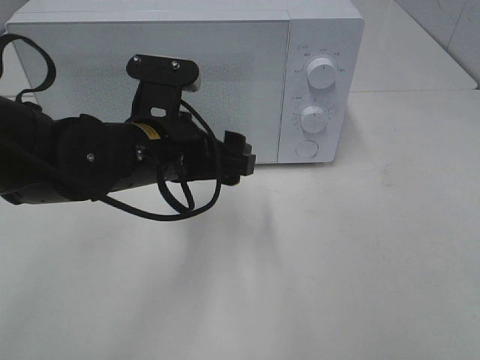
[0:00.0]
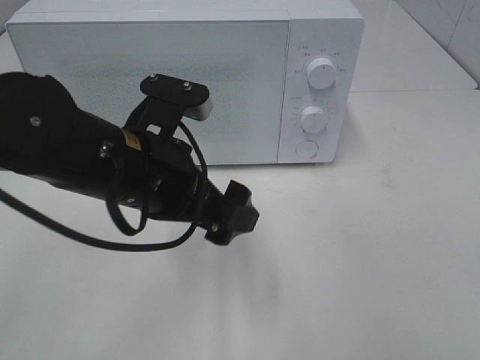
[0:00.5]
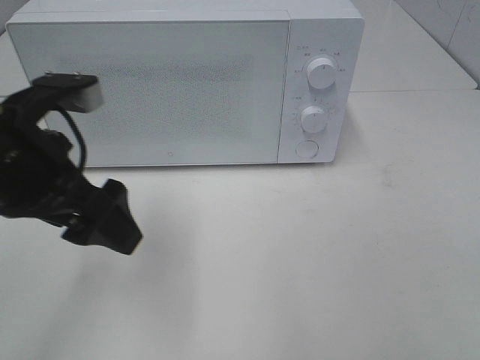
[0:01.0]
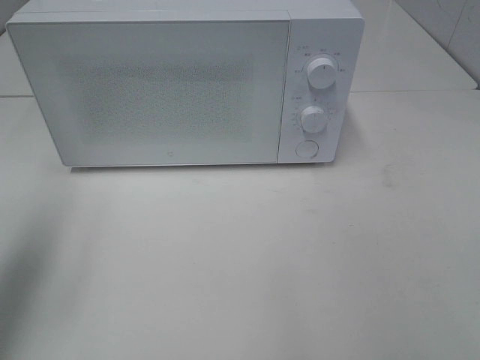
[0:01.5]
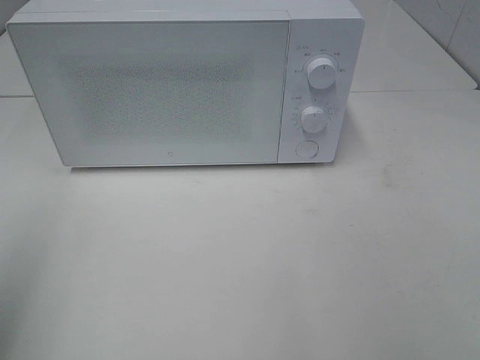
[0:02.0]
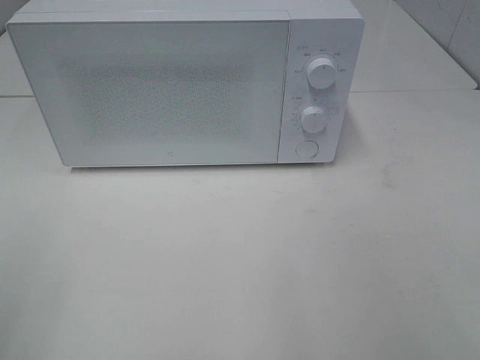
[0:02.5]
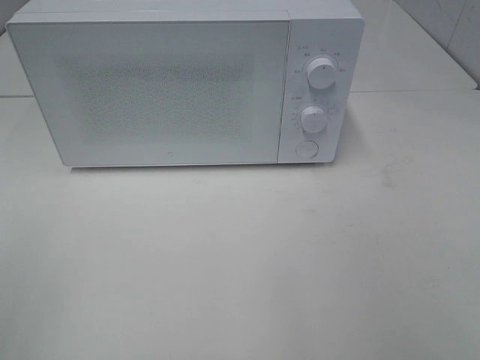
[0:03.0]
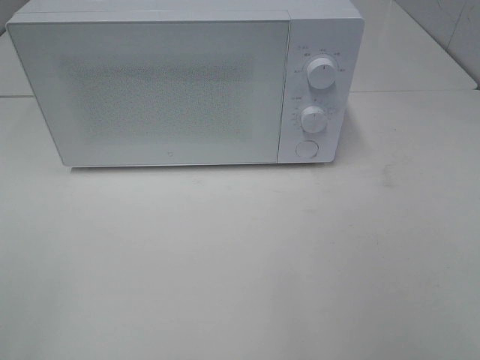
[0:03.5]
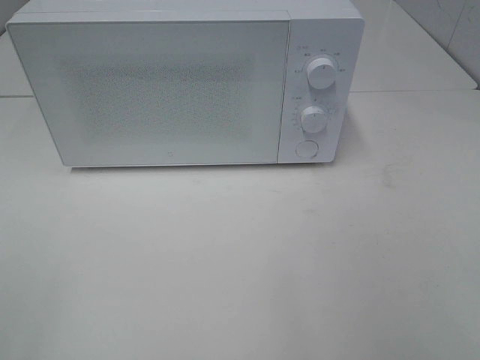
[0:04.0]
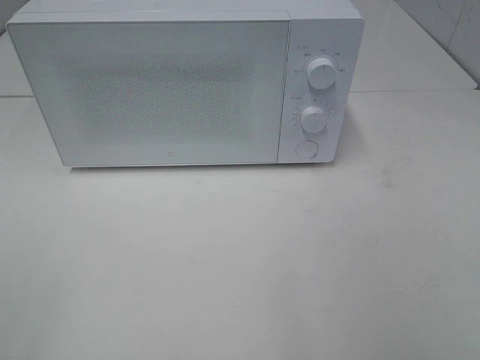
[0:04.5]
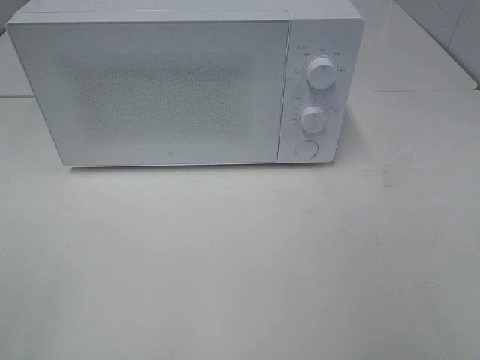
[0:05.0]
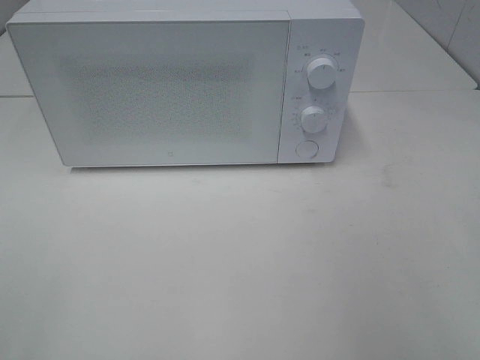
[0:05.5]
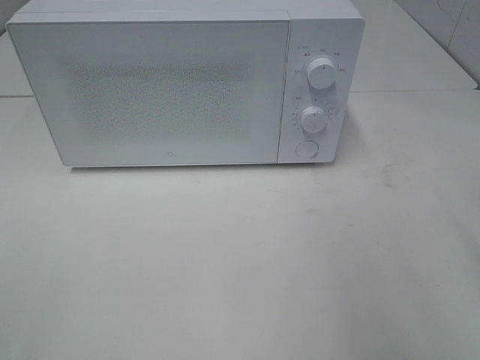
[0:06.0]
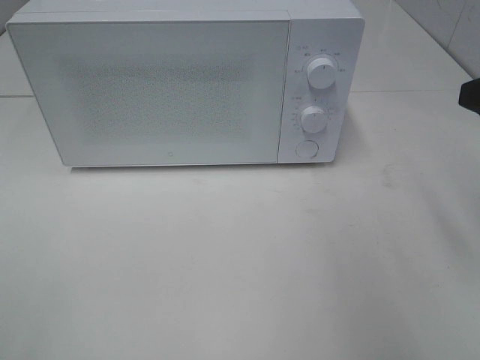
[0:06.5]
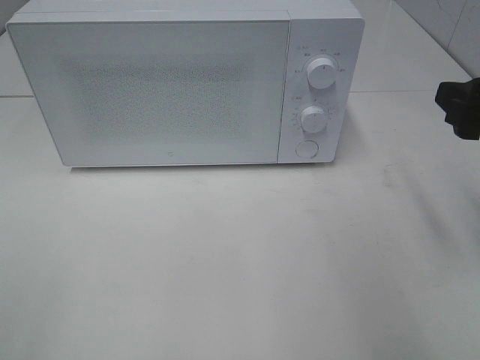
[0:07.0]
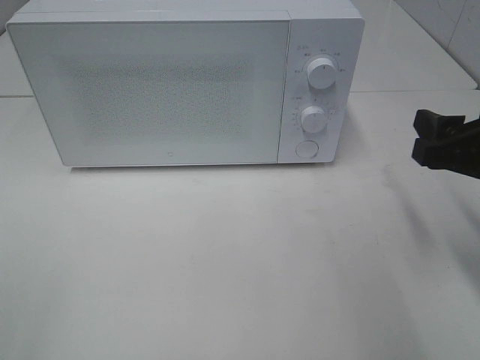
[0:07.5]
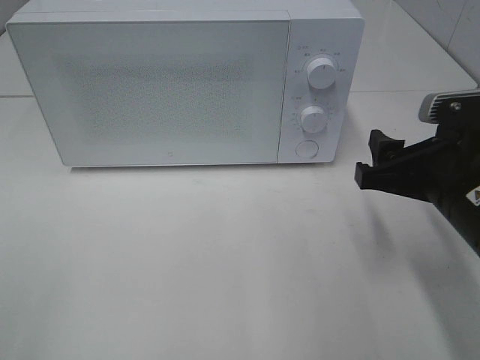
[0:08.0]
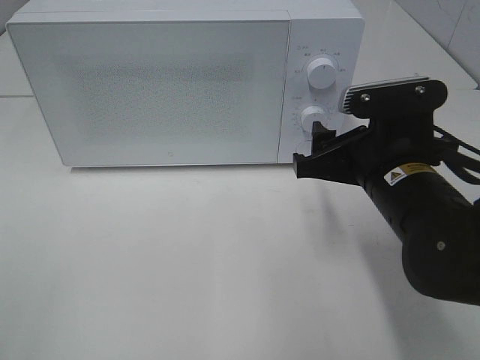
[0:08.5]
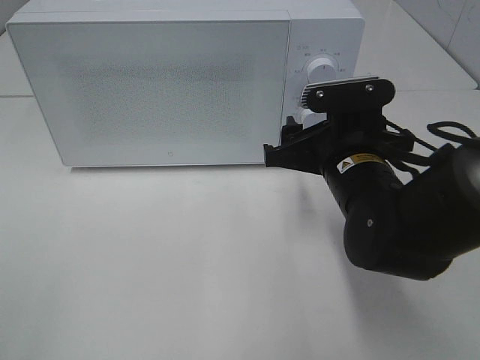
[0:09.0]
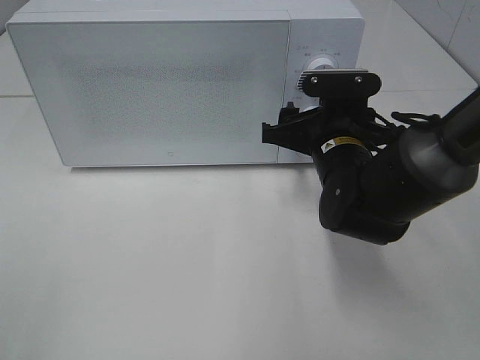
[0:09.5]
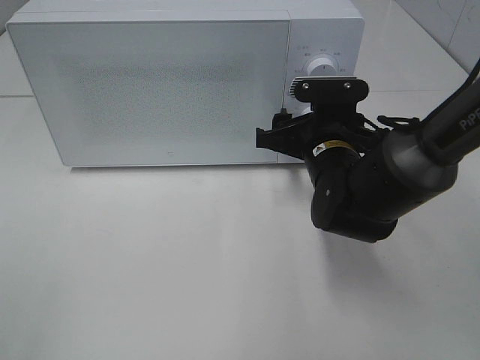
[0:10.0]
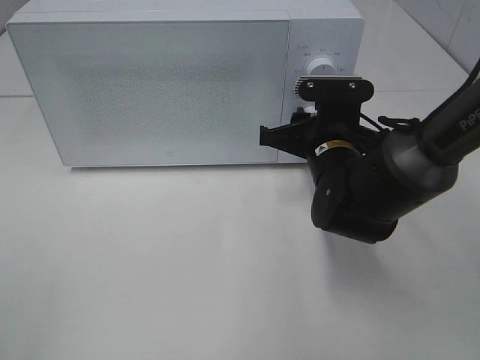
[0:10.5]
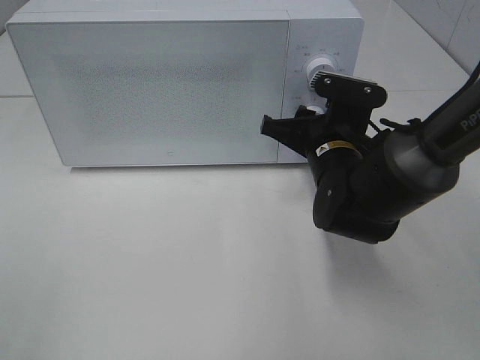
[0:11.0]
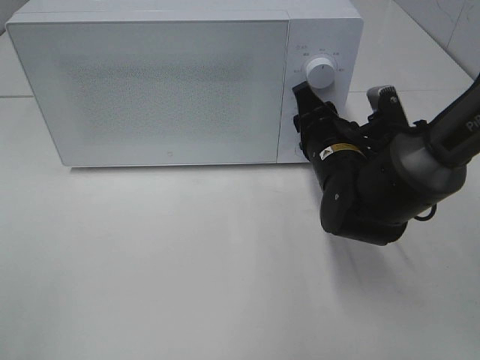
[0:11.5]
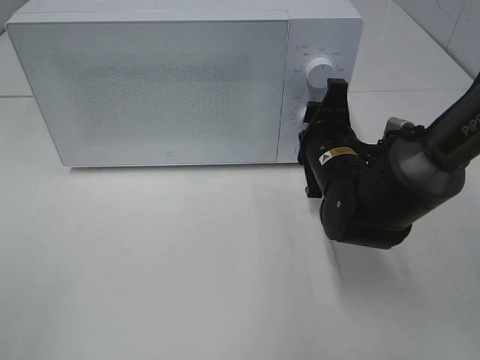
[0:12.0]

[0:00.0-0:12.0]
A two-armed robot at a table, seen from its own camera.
Task of the whole recording: Heat the burger.
0:00.0 to 0:02.0: The left gripper shifts about 35 cm to the left, upward and backward.
0:02.0 to 0:04.0: The left gripper is displaced backward by some 10 cm.
0:06.0 to 0:08.0: The right gripper moves downward, to the left and forward, approximately 15 cm.
0:08.0 to 0:10.0: The right gripper shifts about 15 cm forward, to the left and downward.
0:10.0 to 0:12.0: The right gripper closes up.

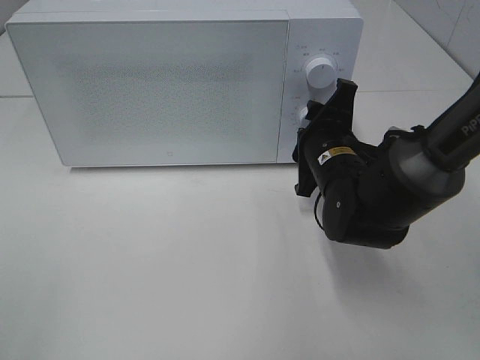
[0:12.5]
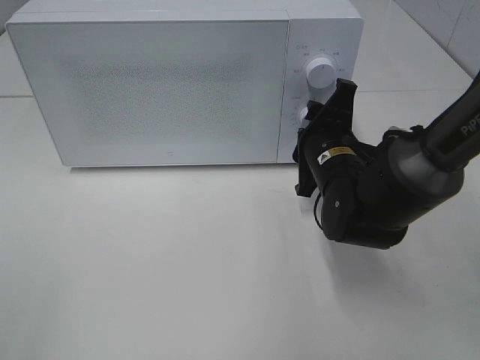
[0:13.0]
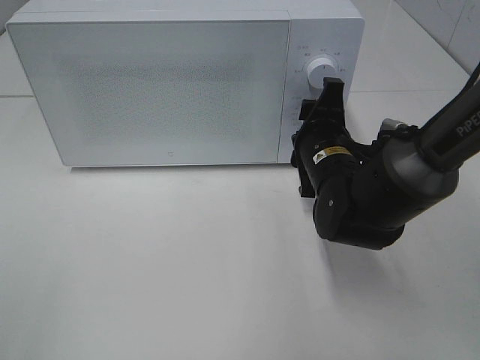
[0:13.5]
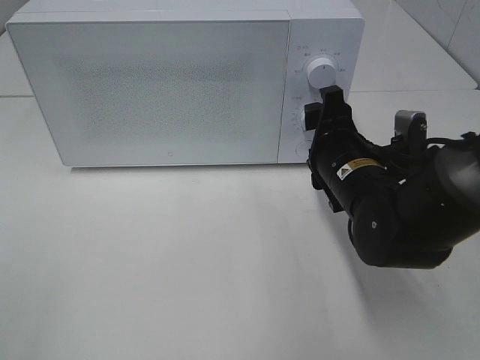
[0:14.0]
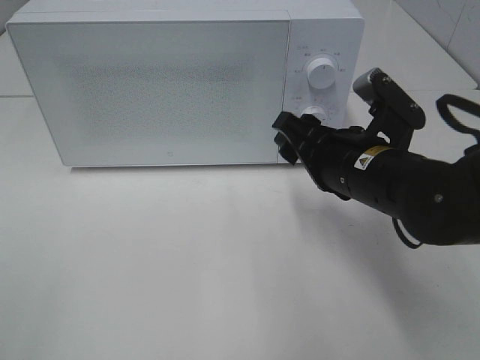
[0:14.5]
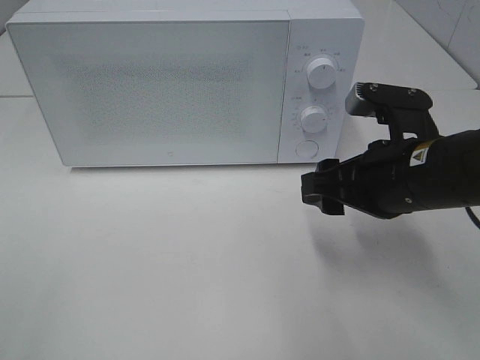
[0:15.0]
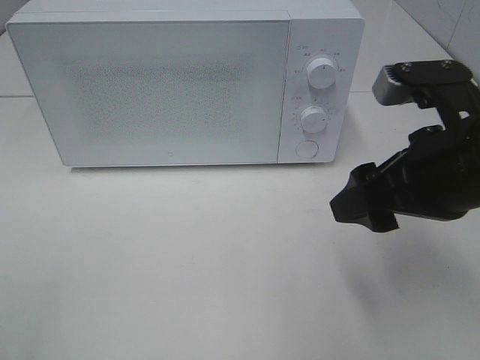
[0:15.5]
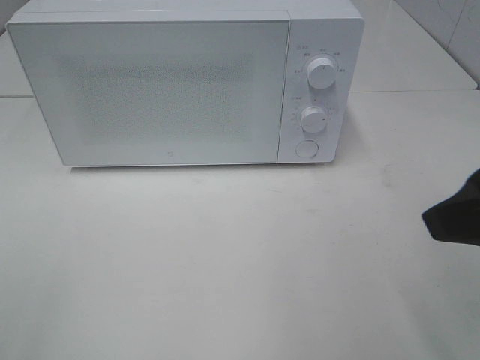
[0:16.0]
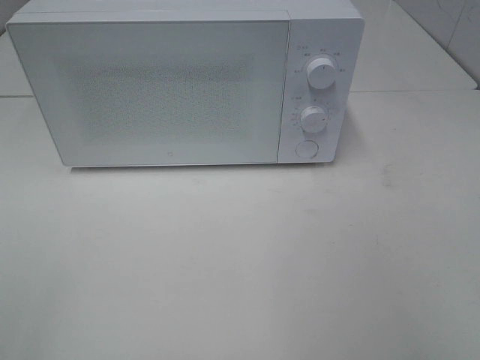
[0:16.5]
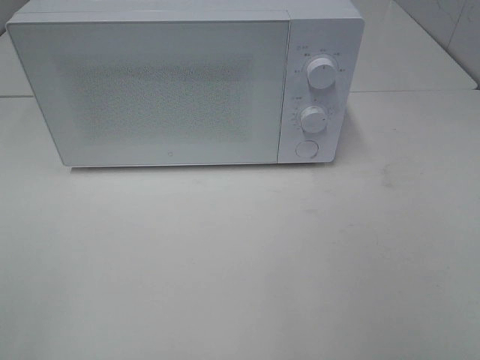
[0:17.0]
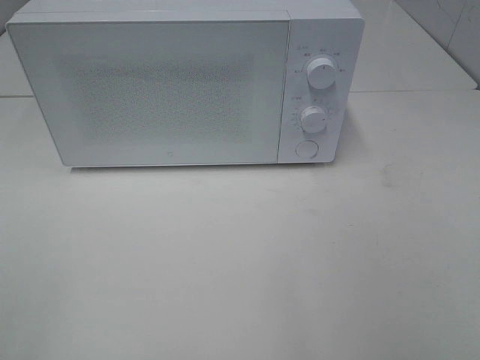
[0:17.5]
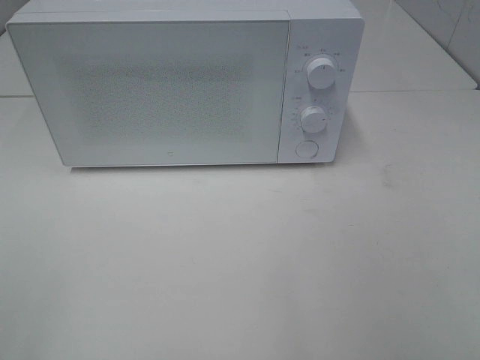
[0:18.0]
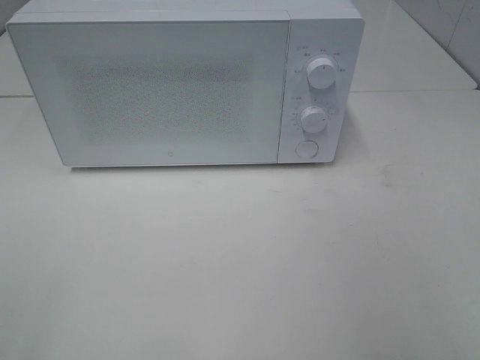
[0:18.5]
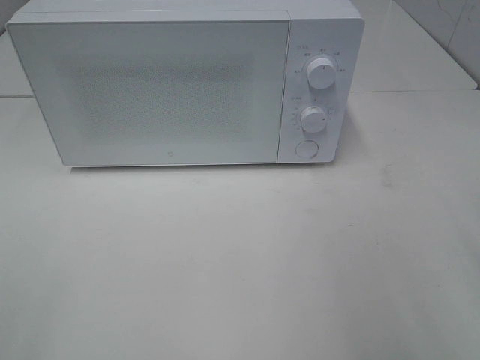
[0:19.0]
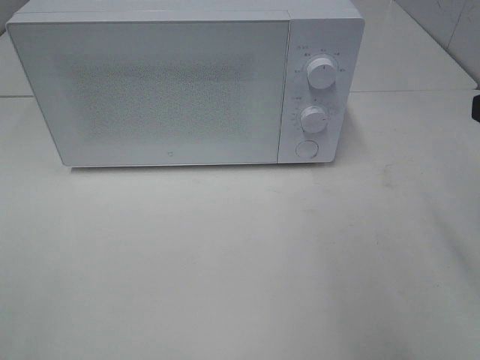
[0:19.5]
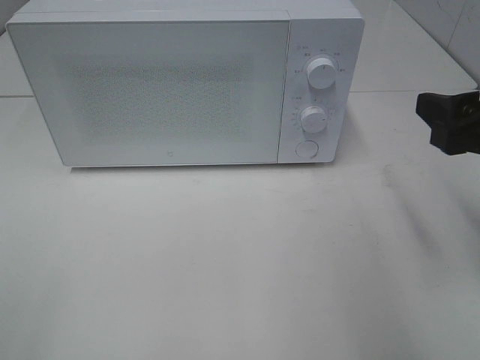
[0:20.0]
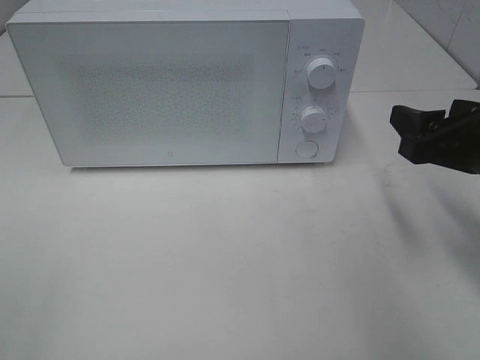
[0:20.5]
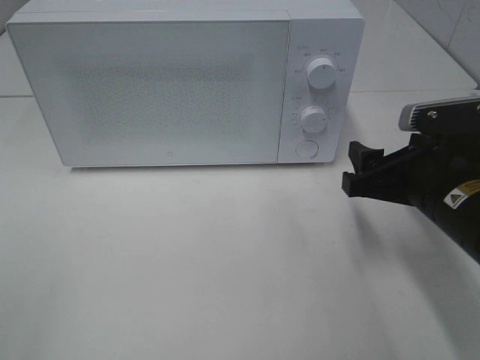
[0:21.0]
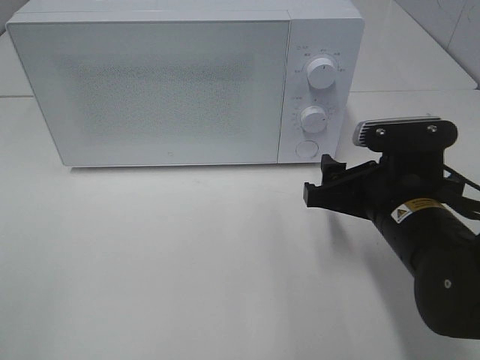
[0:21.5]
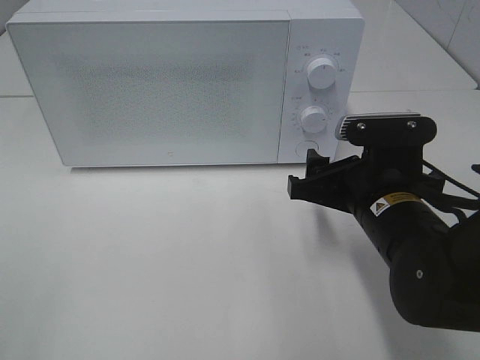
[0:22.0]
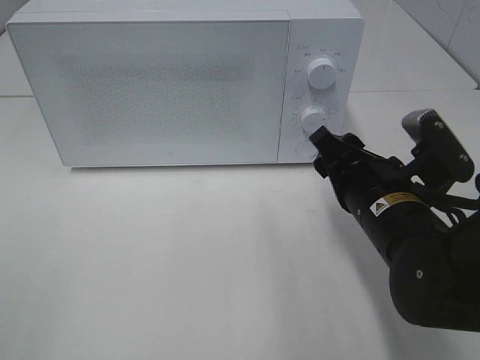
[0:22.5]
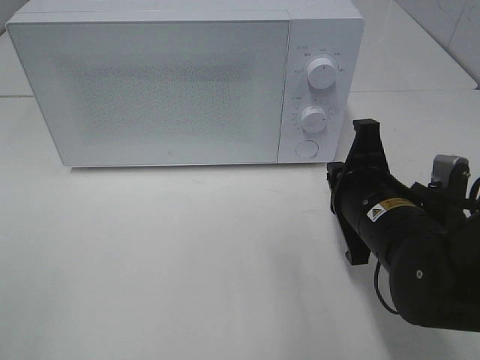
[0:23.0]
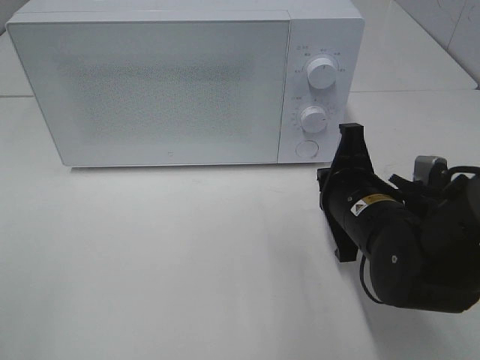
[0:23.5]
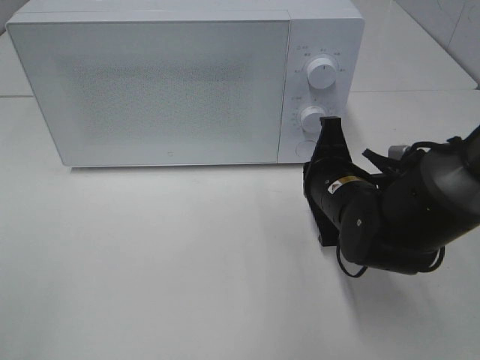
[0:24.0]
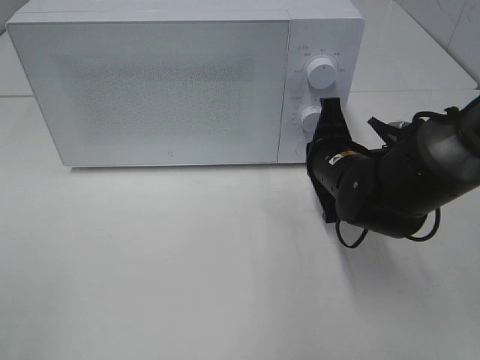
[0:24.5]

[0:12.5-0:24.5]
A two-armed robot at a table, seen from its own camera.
Task of the whole recording: Heat the burger.
0:12.5 to 0:14.5: The right gripper is displaced backward by about 5 cm.
0:14.5 to 0:16.5: The right gripper moves backward, upward and to the right, about 30 cm.
0:18.5 to 0:20.5: The right gripper is displaced forward and downward by about 20 cm.
0:20.5 to 0:22.5: The right gripper is displaced to the left and downward by about 10 cm.
0:22.5 to 0:24.5: The right gripper shifts roughly 10 cm forward, and closes.

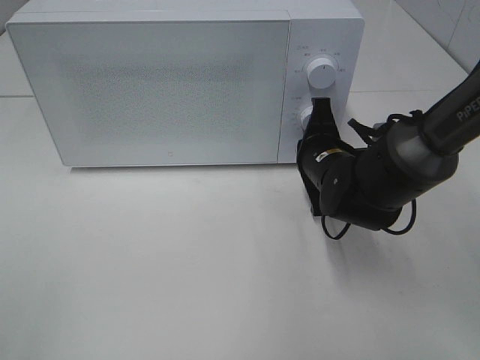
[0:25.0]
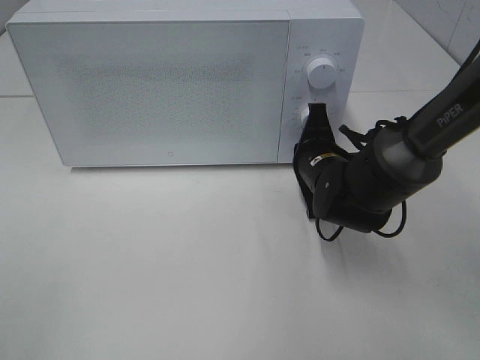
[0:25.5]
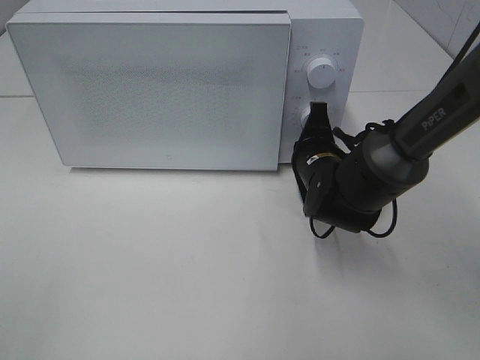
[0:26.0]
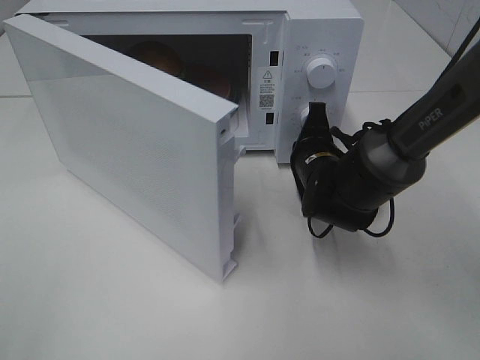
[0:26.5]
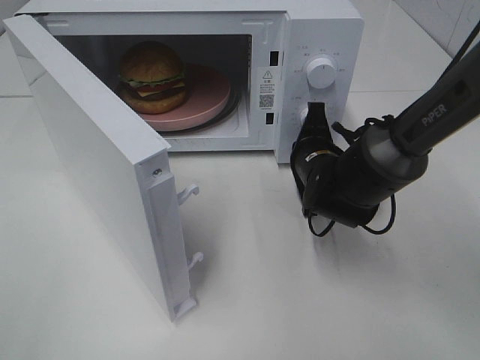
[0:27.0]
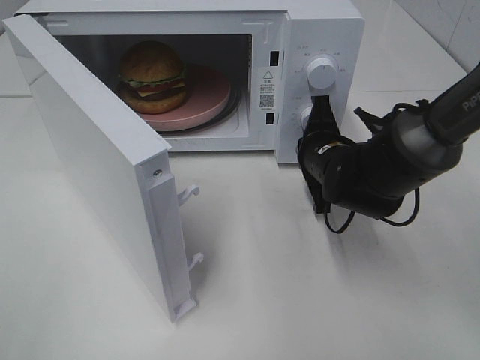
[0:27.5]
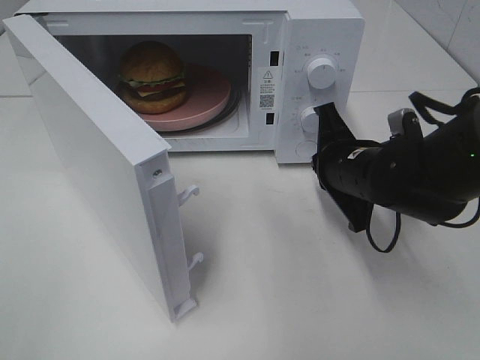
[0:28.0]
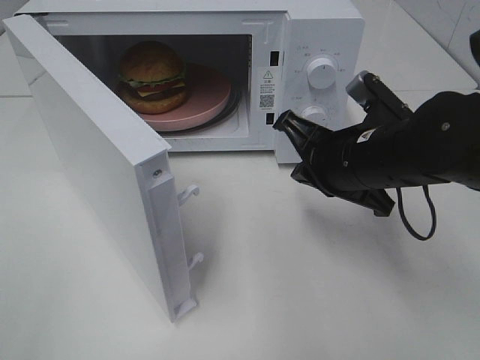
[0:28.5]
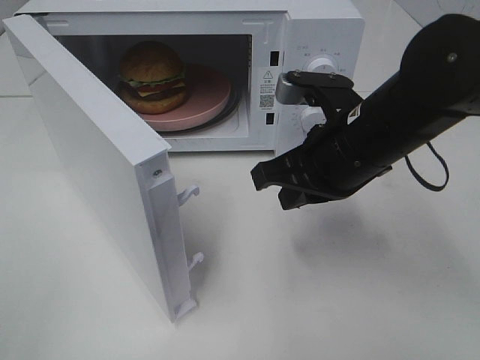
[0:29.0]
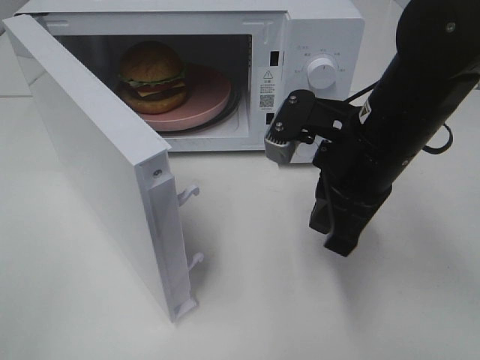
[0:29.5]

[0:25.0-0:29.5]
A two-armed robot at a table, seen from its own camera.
Task of the whole recording: Heat the burger.
Step, 0:25.0 to 0:28.0: Right hand: press the switch.
0:27.0 to 0:29.5: The right gripper is displaced upward and backward by approximately 15 cm.
